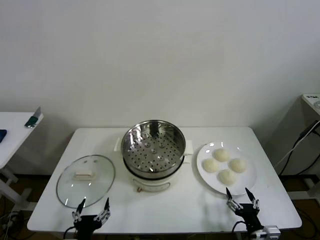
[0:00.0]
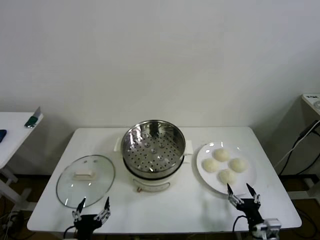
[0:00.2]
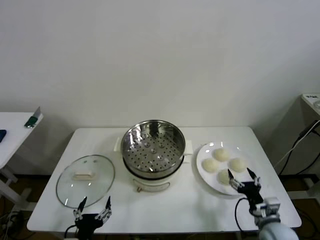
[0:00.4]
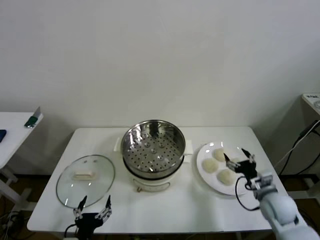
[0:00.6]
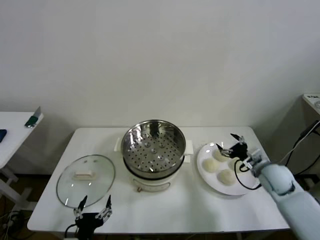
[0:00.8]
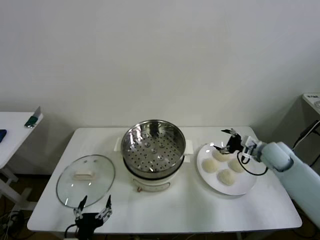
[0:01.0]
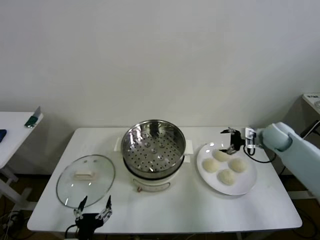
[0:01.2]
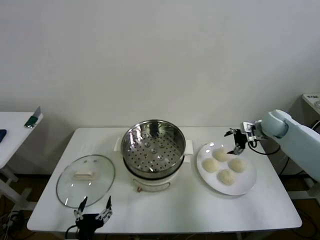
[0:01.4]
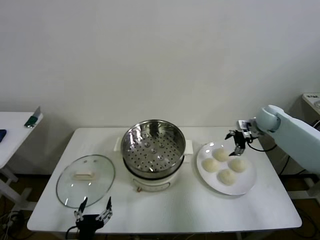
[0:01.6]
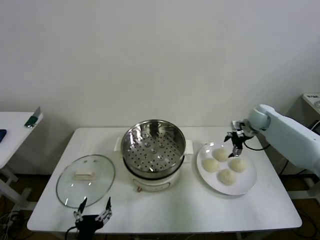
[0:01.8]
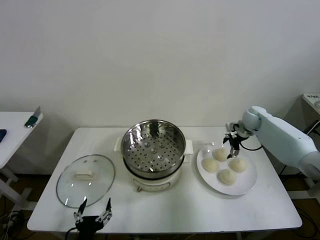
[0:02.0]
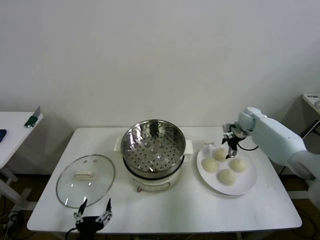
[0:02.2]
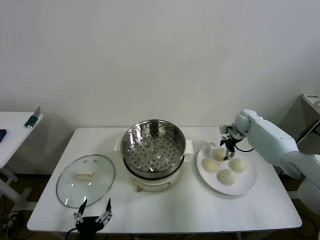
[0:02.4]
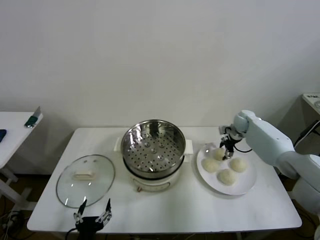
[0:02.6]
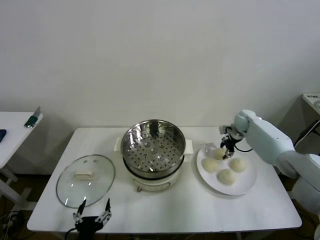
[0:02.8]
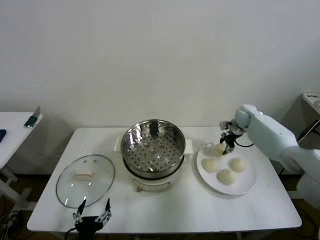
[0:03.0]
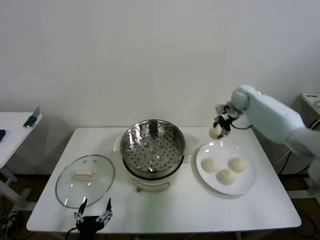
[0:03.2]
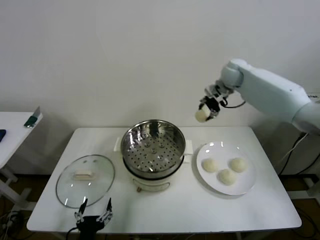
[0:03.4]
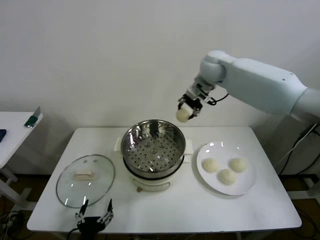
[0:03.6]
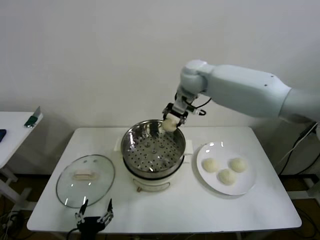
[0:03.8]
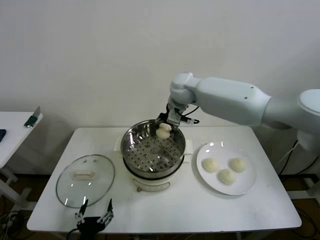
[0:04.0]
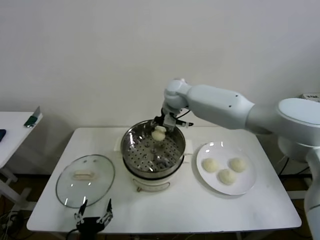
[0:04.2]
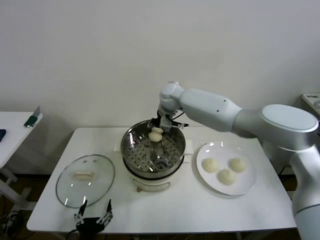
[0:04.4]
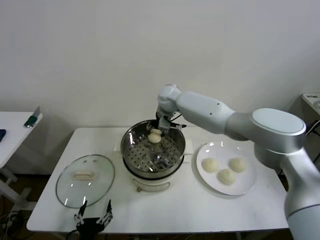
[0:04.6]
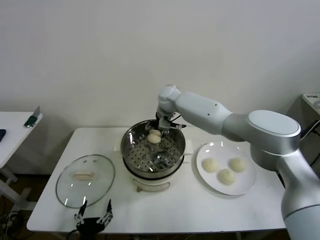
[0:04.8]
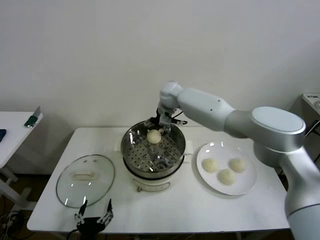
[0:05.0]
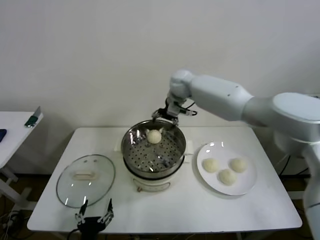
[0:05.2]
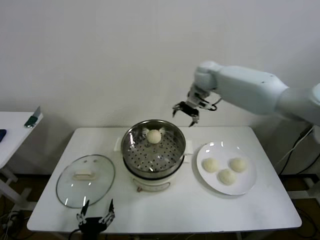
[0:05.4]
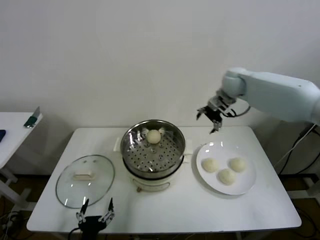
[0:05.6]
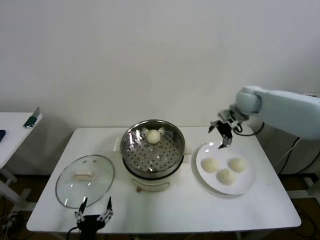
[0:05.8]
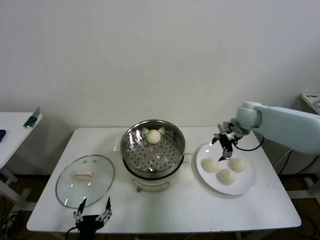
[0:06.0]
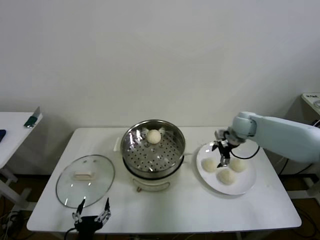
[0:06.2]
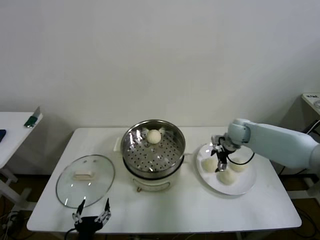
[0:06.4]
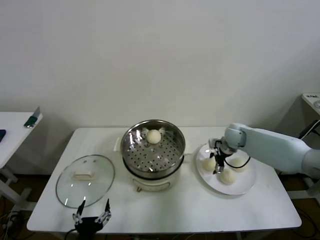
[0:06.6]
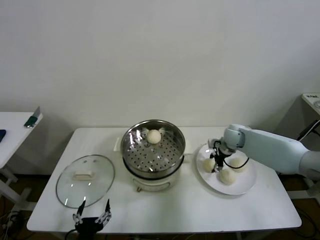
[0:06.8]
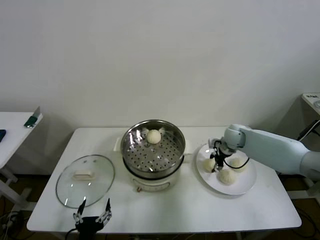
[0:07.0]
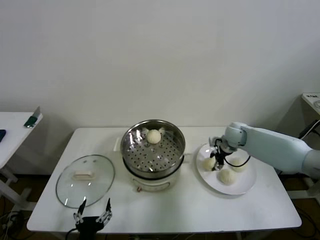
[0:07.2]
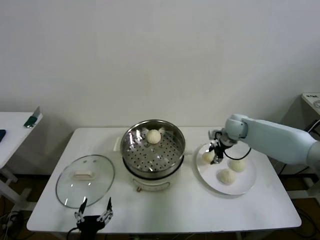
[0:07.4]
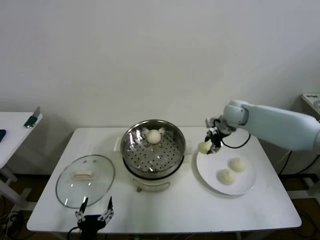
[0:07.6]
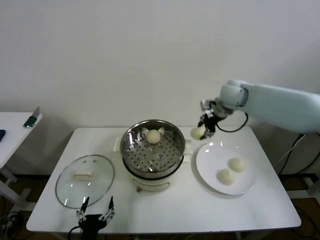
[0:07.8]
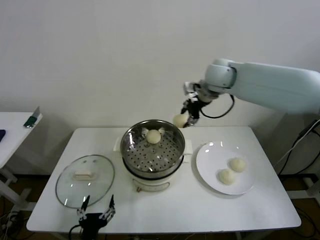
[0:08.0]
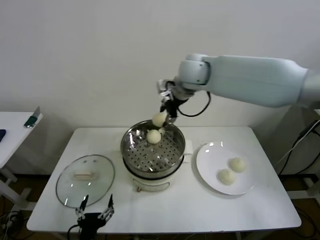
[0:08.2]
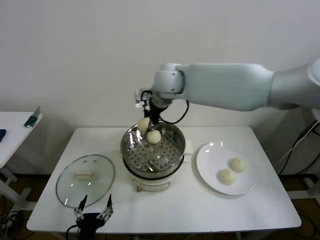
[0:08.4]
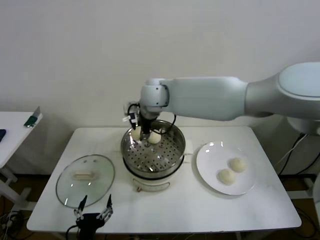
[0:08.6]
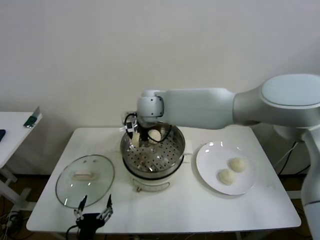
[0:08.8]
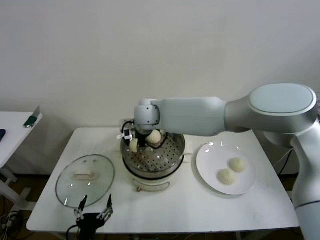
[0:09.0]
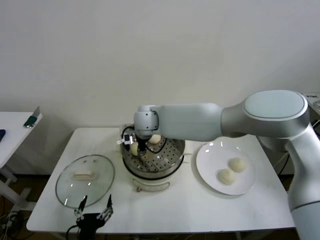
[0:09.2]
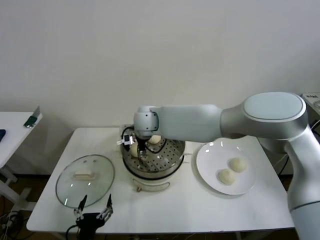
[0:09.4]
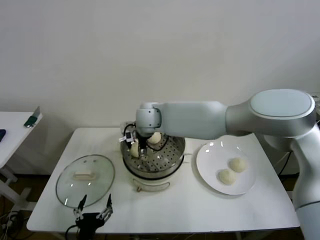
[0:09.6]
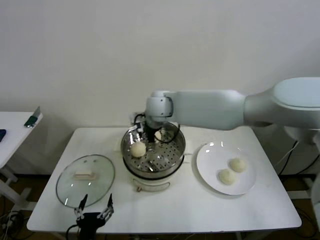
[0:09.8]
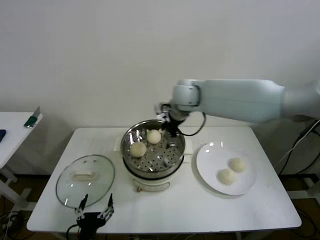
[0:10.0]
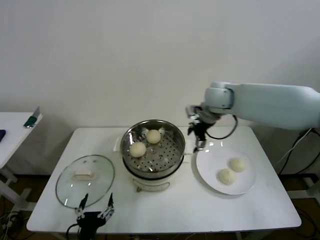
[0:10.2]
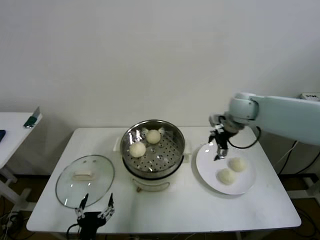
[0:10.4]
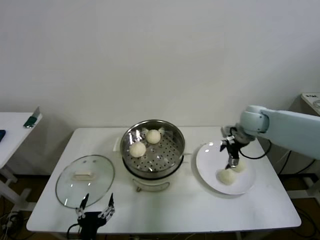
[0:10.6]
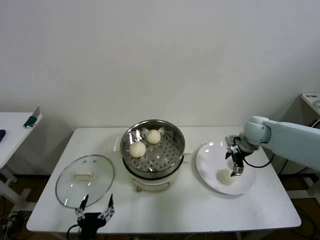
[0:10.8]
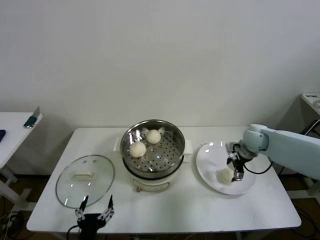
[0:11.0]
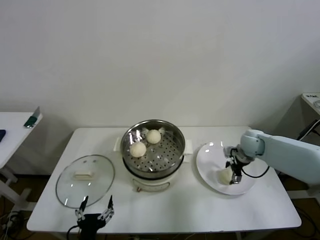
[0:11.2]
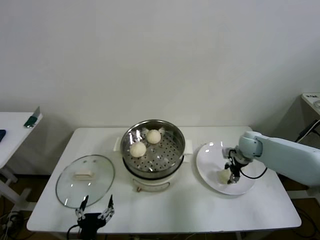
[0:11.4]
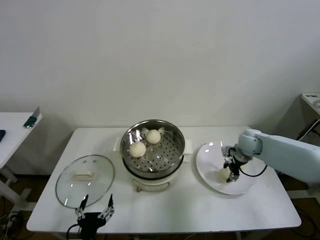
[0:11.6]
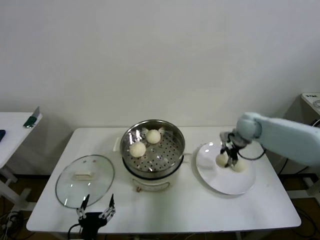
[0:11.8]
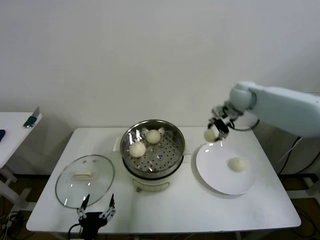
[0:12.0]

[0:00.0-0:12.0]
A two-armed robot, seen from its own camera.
Step, 0:00.0 to 0:02.6: Grasp the baozi in the plate with right gripper.
Step, 0:02.8 to 0:04.8: Place the baozi on the steamer with right gripper.
Step, 0:05.0 to 0:06.8: Grasp the baozi in the plate with right gripper.
Step, 0:07.0 to 0:09.2: Place the baozi on the steamer with right gripper.
Step, 0:09.6 to 0:11.4: Grasp the baozi in the plate with right gripper.
0:01.6 to 0:03.0: The right gripper goes about 10 cm forward and to the left, travels downward and back again, approximately 5 cm each way, and closes up.
0:03.0 to 0:04.4: The right gripper heads to the left, covering roughly 30 cm.
0:04.4 to 0:06.0: The right gripper shifts approximately 30 cm to the right, and opens.
0:06.0 to 0:07.6: The right gripper heads upward and to the left, covering about 10 cm, and closes up.
0:07.6 to 0:09.0: The right gripper heads to the left, covering approximately 30 cm.
0:09.0 to 0:10.4: The right gripper heads to the right, covering approximately 35 cm, and opens.
0:10.4 to 0:12.0: The right gripper goes downward and returns, some 15 cm each way, and closes.

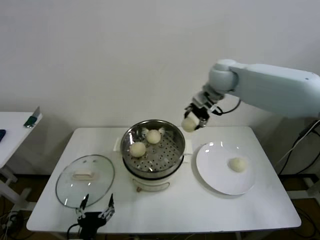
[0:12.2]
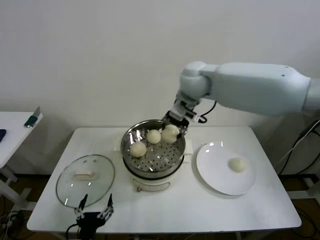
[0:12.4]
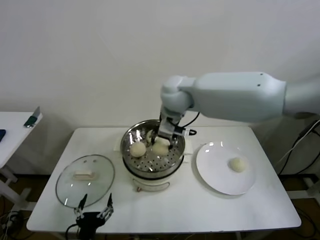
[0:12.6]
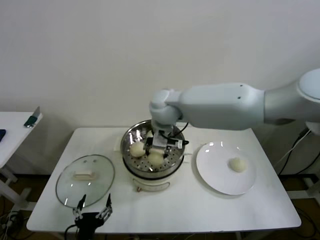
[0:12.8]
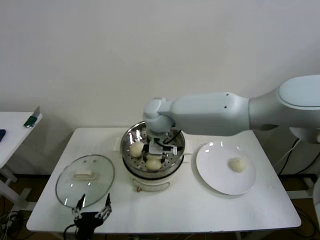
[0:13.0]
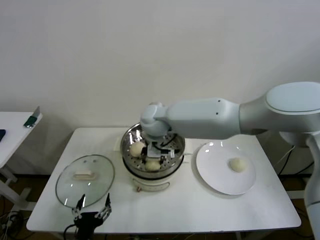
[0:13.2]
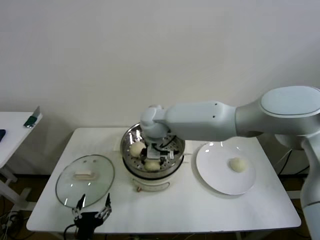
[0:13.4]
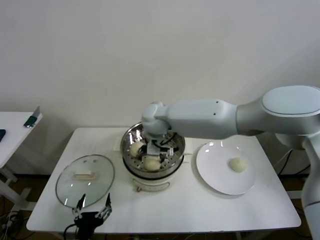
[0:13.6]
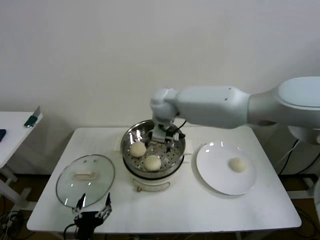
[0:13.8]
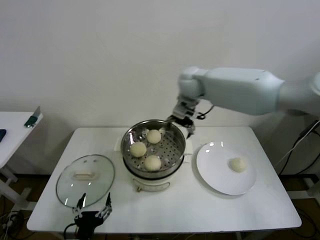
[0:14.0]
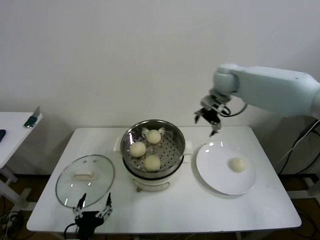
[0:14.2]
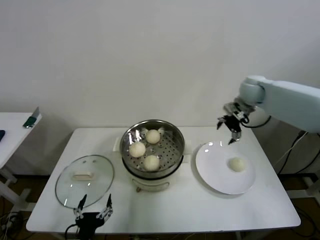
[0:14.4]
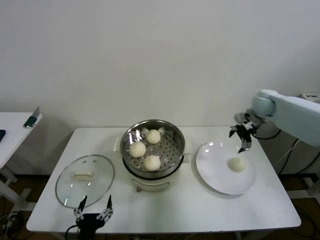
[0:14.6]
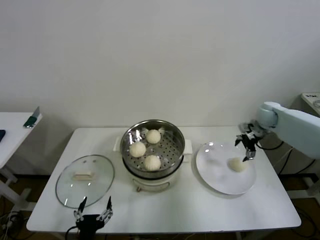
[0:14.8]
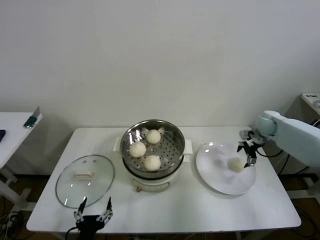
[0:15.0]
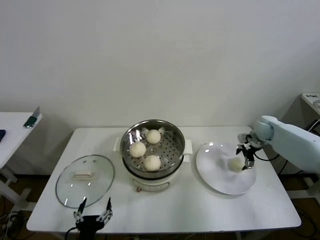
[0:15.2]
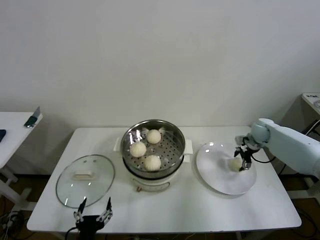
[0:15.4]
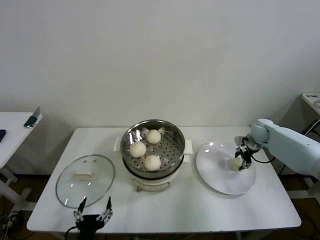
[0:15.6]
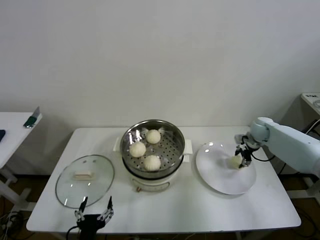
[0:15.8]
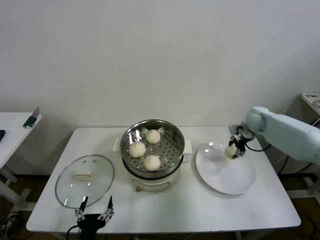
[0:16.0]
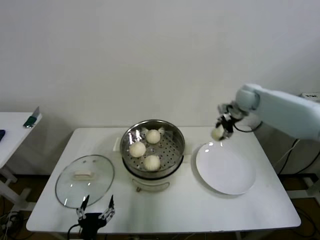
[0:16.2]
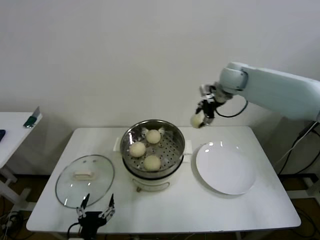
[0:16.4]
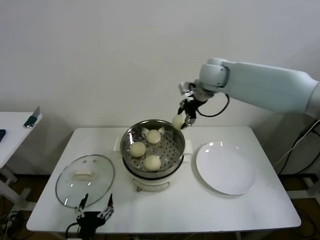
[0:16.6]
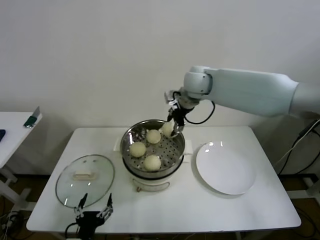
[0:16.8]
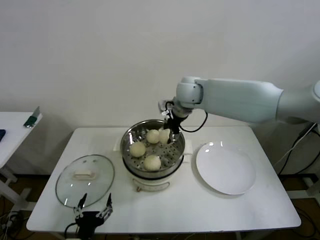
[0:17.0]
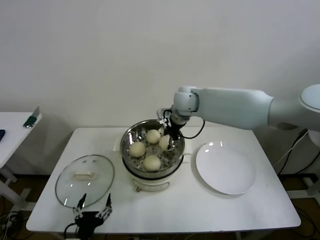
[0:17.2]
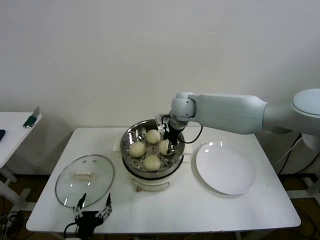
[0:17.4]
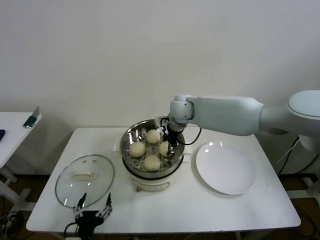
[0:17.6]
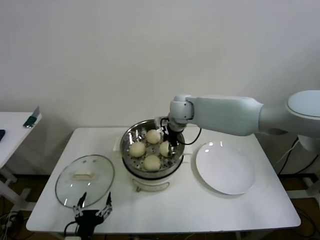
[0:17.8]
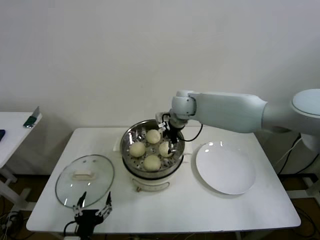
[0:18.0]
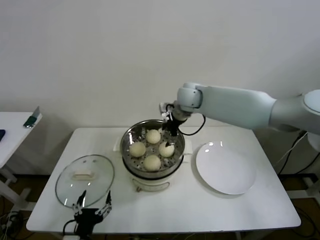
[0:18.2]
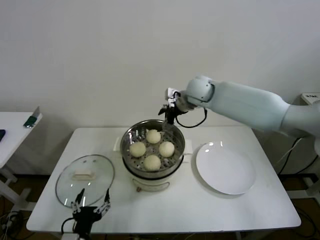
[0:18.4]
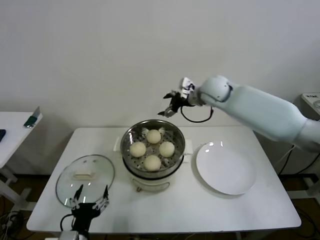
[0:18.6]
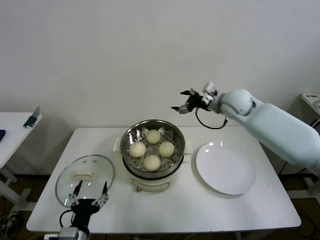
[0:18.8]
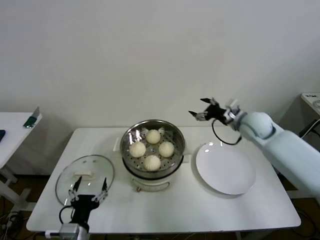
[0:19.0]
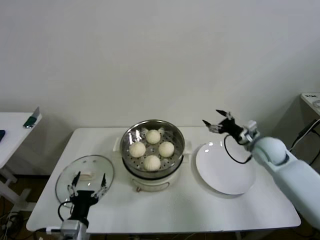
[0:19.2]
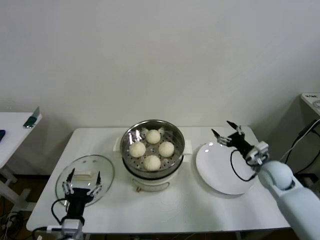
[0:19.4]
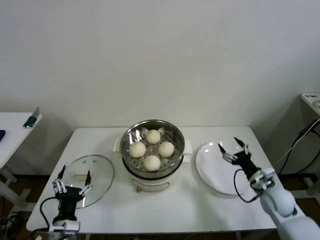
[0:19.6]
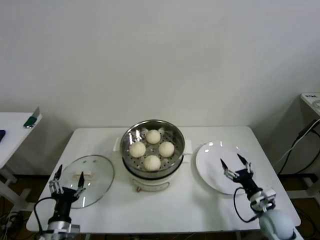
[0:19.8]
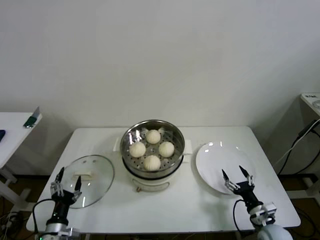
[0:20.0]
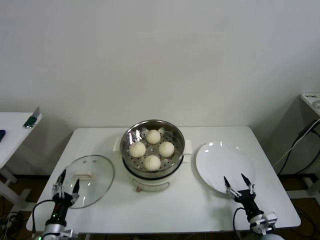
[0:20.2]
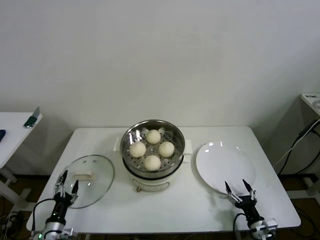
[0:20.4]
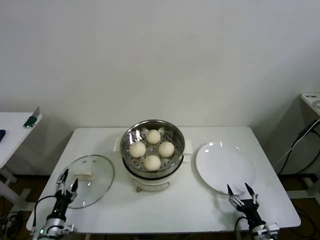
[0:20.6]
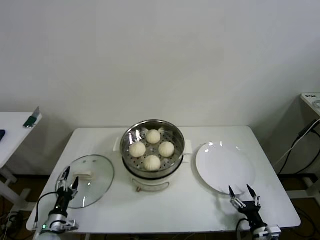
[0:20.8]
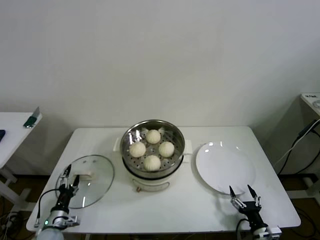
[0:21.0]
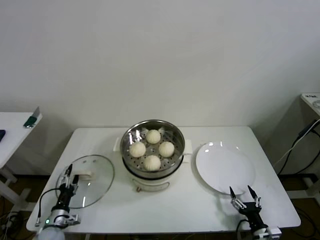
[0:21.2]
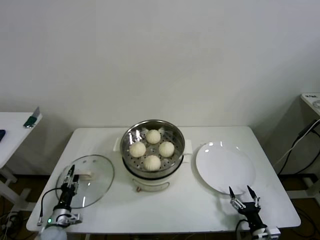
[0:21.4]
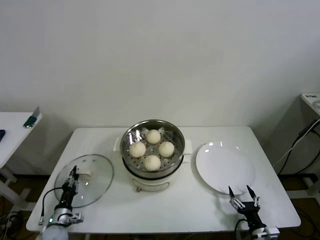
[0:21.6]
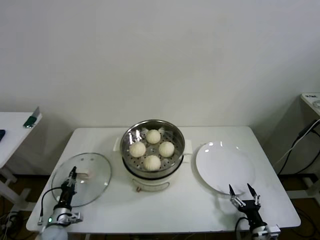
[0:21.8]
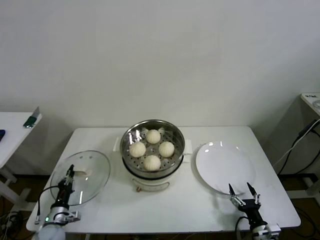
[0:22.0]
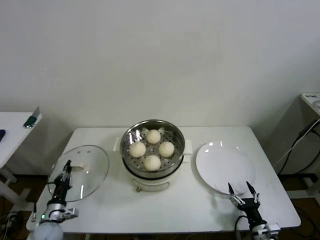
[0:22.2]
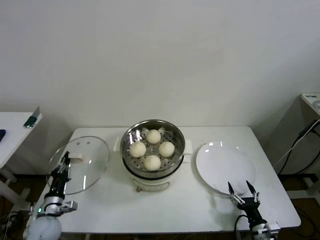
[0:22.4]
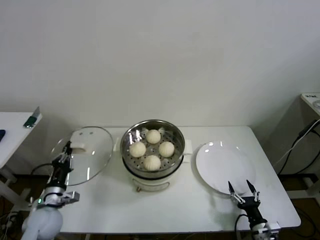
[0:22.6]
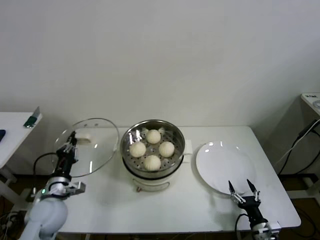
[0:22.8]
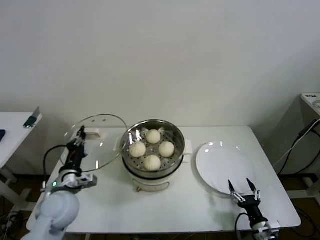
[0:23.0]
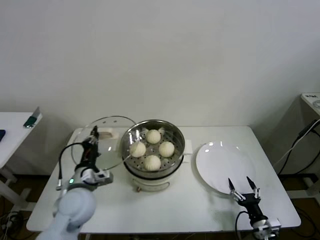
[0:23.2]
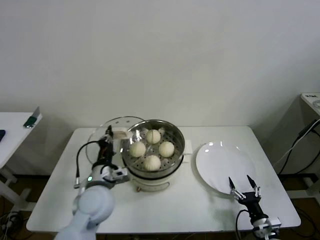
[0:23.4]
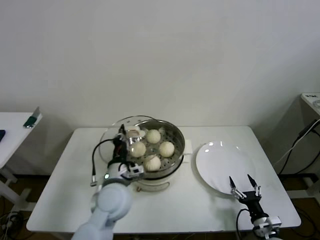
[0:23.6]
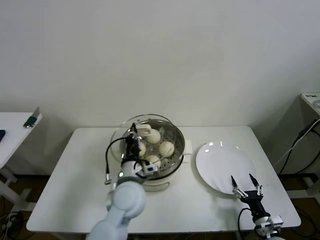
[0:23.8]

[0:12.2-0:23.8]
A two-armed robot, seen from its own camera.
Step, 0:12.2 to 0:13.4: Place the baozi on the steamer with right gripper.
Step, 0:13.6 to 0:15.4: Grasp the baozi in the plate with right gripper.
Step, 0:15.8 to 0:17.6: Place the baozi on the steamer with right gripper.
Step, 0:18.0 to 0:21.6: Grasp the pot lid with left gripper.
0:12.2 to 0:13.6: The right gripper travels to the left and downward by roughly 20 cm, and opens.
0:13.6 to 0:15.0: The right gripper is displaced to the right by approximately 40 cm.
0:15.0 to 0:16.6: The right gripper goes approximately 35 cm to the left and upward, and closes.
0:16.6 to 0:18.0: The right gripper heads downward and to the left, covering roughly 10 cm, and opens.
0:18.0 to 0:19.4: The right gripper travels to the right, downward and backward by about 40 cm; the left gripper changes place by some 5 cm.
0:19.4 to 0:21.0: The right gripper goes roughly 30 cm backward and downward. The left gripper shifts about 25 cm downward, to the left and forward.
0:21.0 to 0:22.4: The left gripper goes roughly 5 cm upward, and closes up.
0:22.4 to 0:23.8: The left gripper goes approximately 35 cm to the right and upward.
